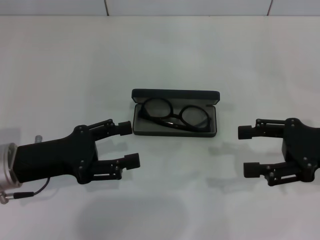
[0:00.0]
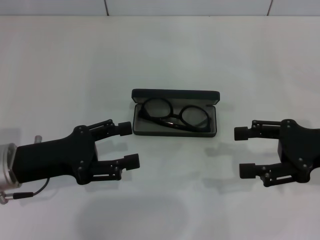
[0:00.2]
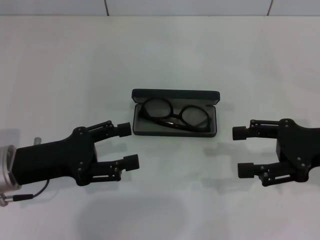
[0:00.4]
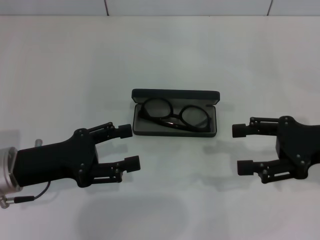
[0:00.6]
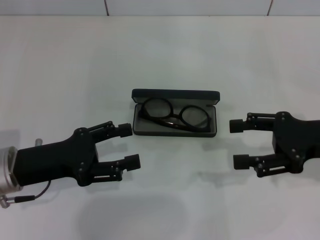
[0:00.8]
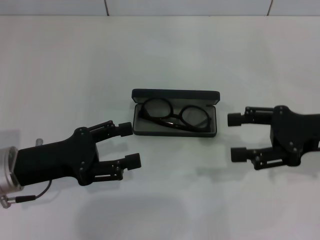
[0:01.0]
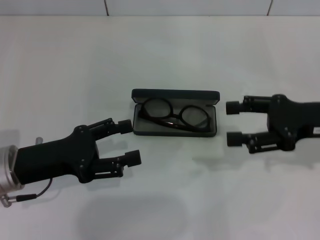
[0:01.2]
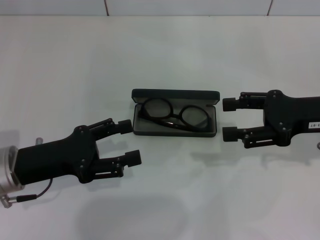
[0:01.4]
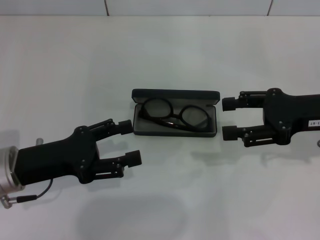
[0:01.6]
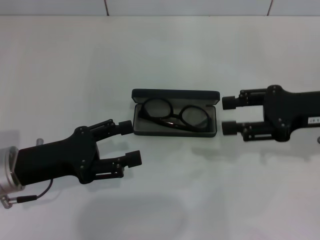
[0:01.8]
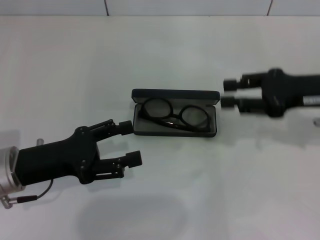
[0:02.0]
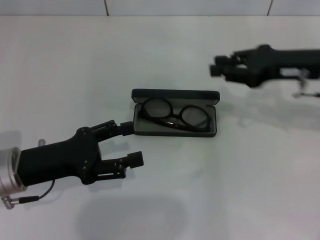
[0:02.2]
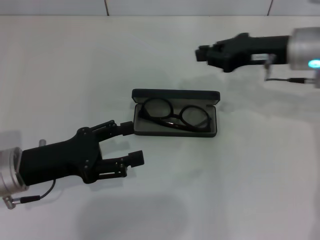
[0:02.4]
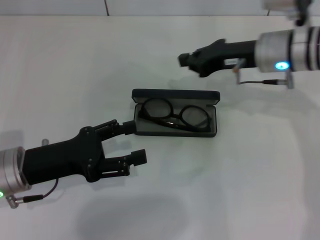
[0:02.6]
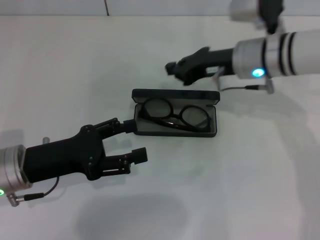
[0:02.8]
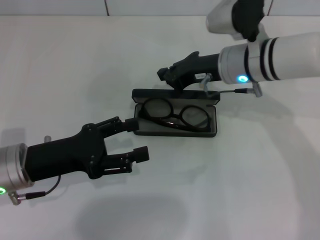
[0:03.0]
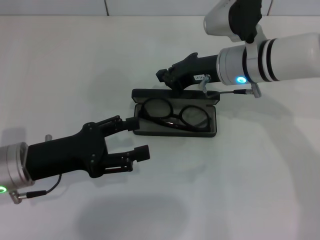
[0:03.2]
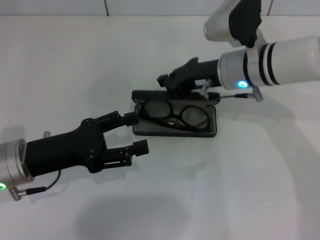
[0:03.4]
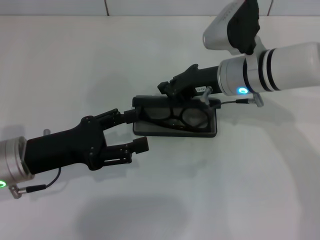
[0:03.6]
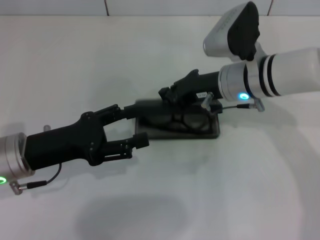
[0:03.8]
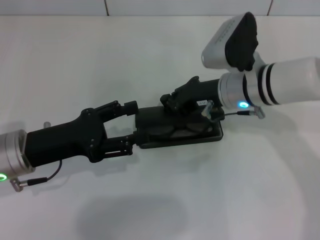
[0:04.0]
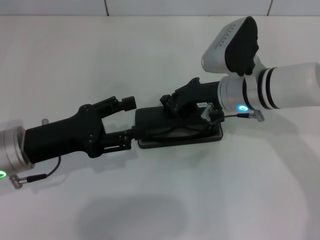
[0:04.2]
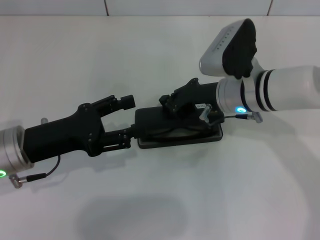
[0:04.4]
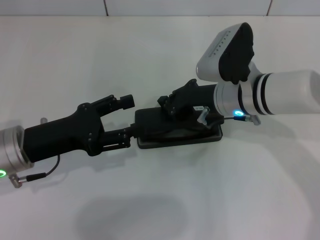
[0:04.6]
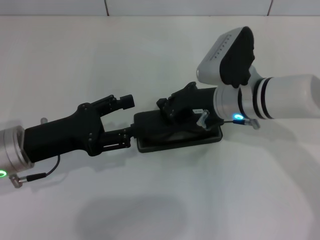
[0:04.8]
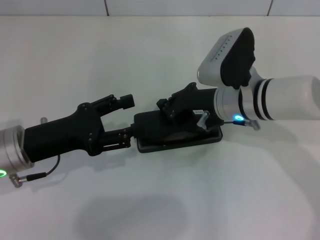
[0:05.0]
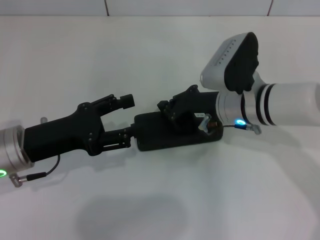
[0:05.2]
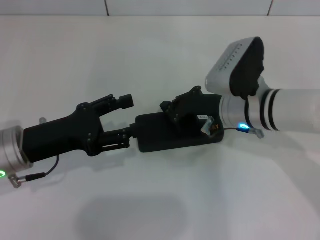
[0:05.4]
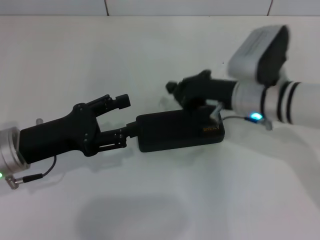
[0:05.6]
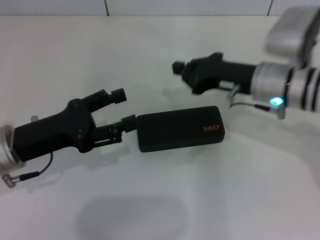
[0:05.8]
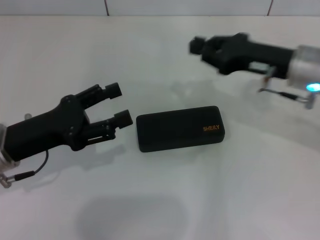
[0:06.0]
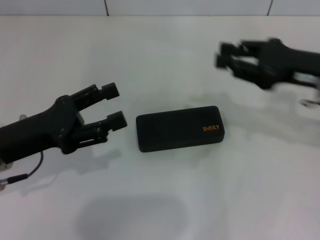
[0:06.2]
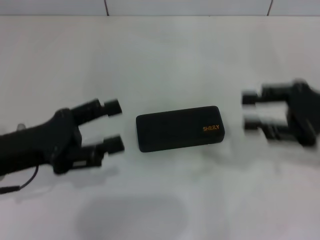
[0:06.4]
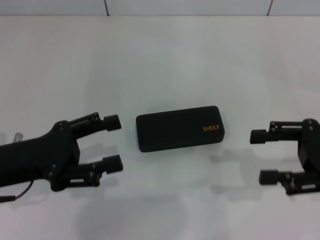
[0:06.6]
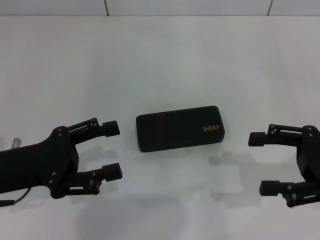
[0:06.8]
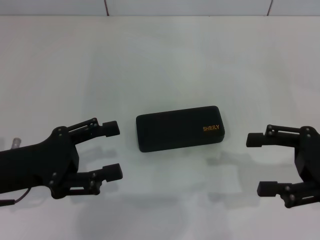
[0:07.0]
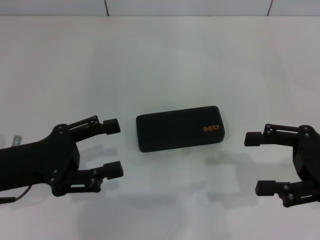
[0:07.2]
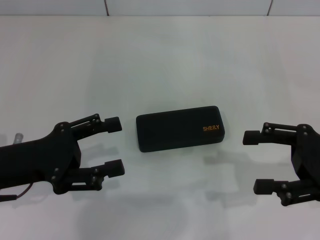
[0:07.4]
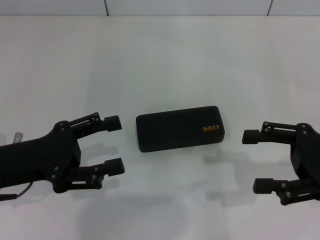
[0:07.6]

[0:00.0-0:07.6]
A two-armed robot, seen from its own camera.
Step, 0:00.0 to 0:05.6: Close the glasses case with your right hand.
0:00.0 to 0:01.6: There are only small adjustments of the grippers.
0:01.6 to 0:03.0: The right gripper goes roughly 15 cm to the left and forward, and closes.
0:03.0 to 0:04.6: The right gripper shifts by some 5 cm.
0:04.6 to 0:06.0: The right gripper shifts about 10 cm to the right and upward.
0:06.0 to 0:07.6: The right gripper heads backward and to the right, covering roughly 15 cm, and opens.
